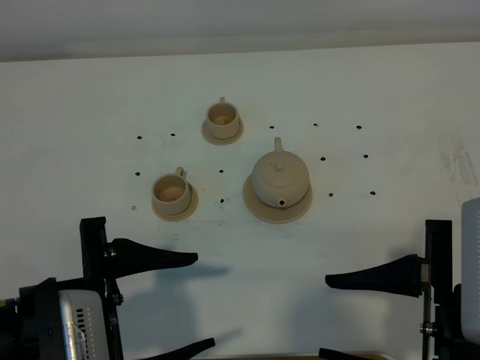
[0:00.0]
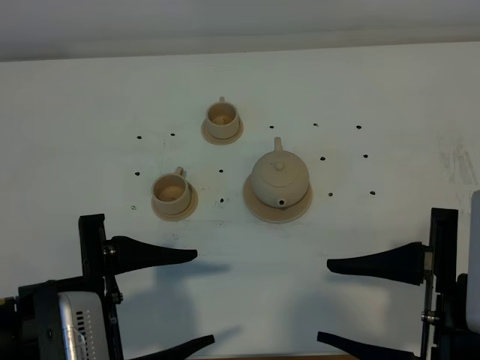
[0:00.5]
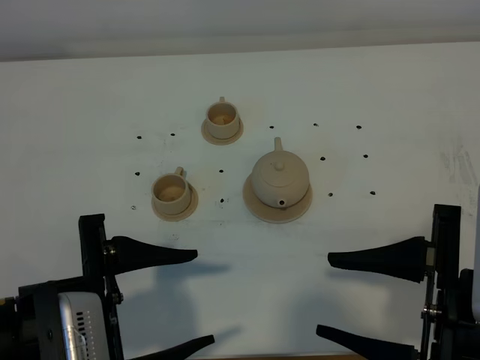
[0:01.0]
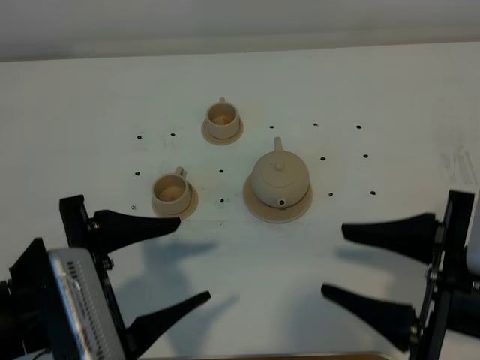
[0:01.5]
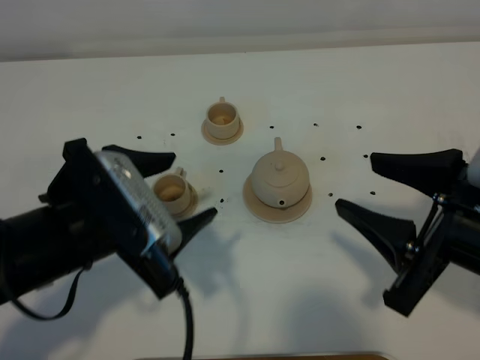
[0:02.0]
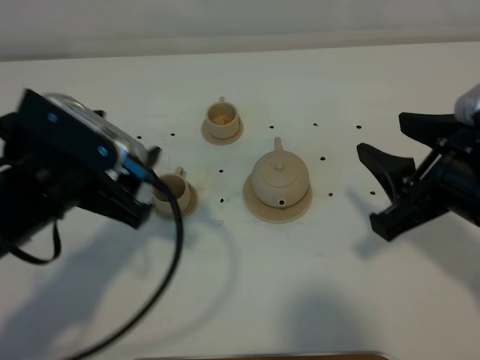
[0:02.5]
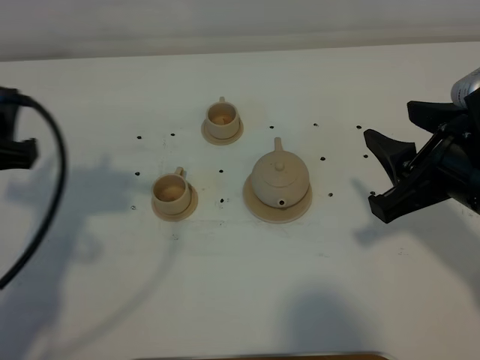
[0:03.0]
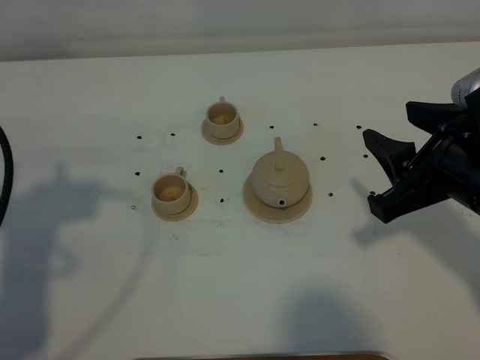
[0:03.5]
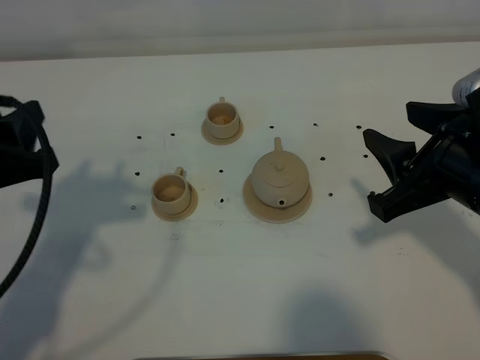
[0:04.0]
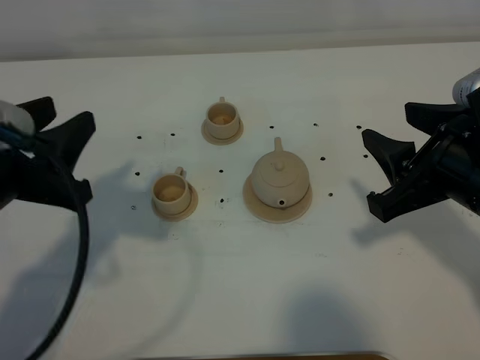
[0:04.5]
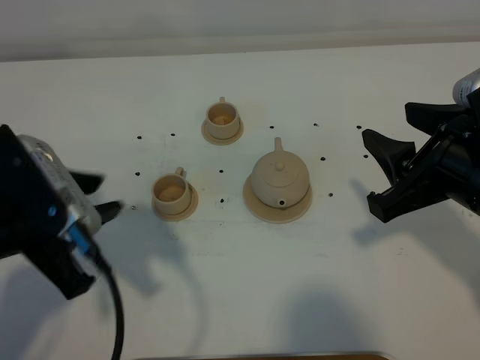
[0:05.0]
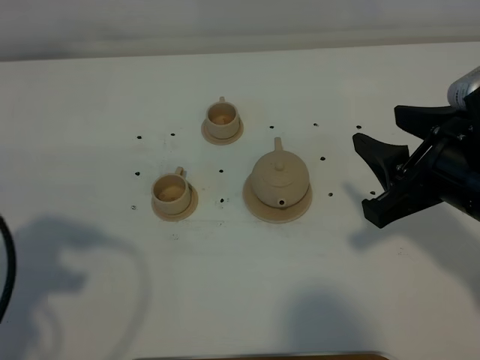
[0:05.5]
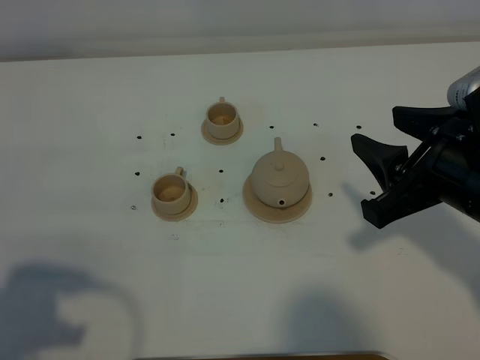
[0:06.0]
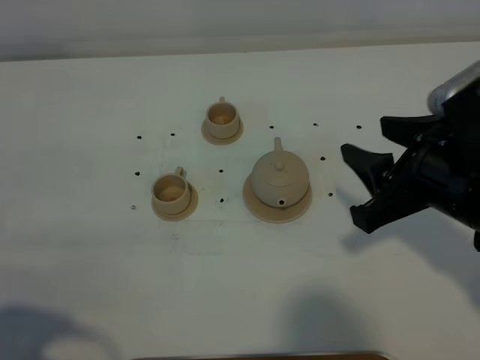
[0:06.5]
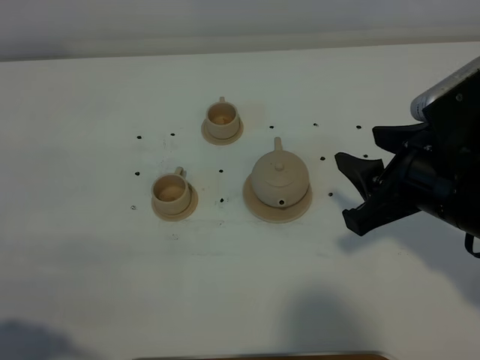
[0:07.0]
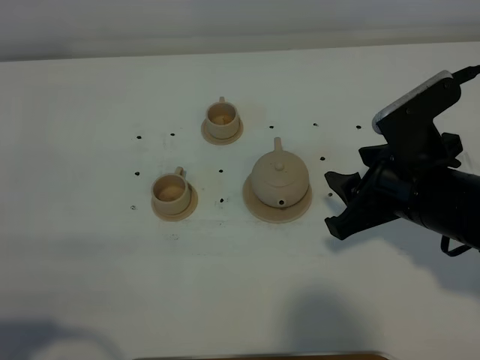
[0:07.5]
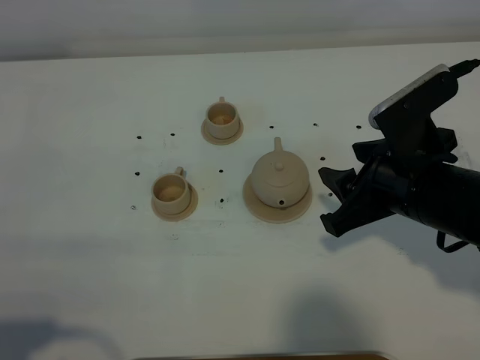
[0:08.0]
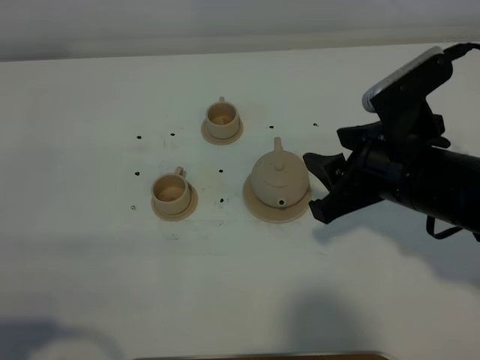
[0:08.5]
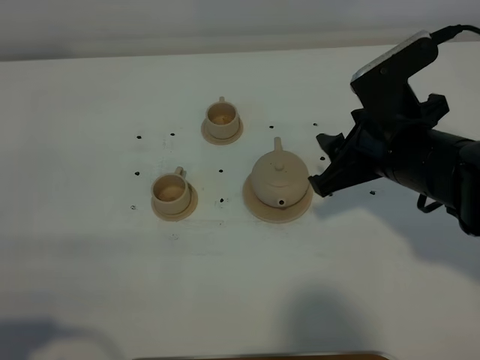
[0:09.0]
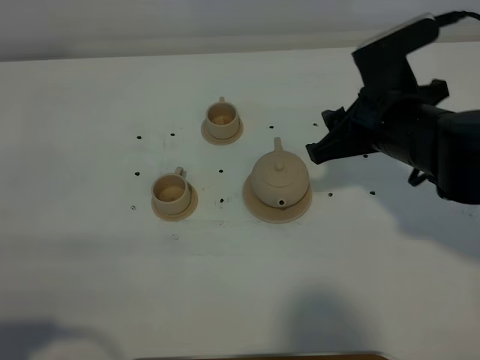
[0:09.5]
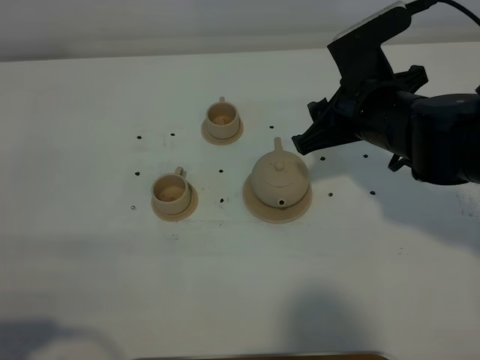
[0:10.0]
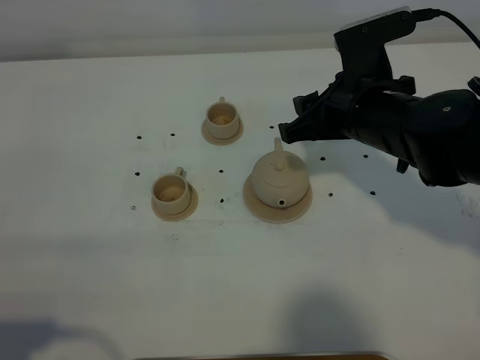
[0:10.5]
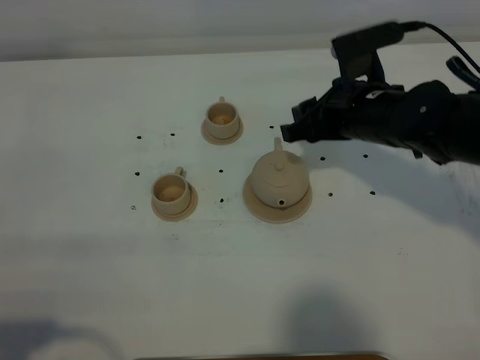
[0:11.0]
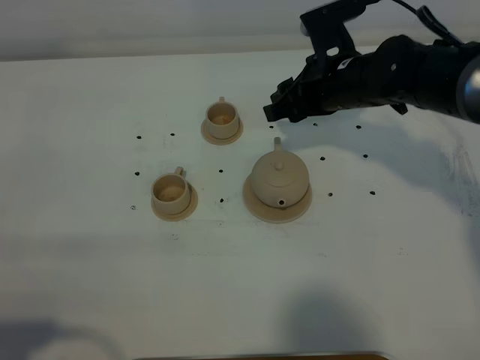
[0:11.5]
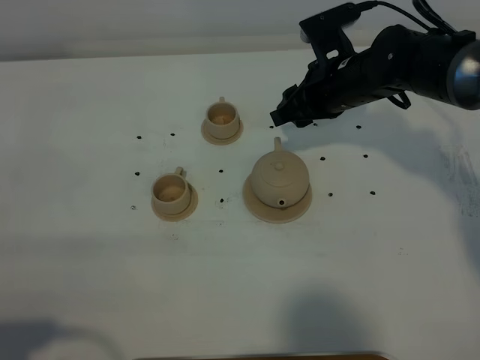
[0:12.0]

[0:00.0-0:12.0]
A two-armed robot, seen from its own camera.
Task of the whole recording: grasp the brown teapot and pour the tea into the two brown teacups one by one, put the brown teapot back in its original place.
0:00.0 to 0:02.0: The two grippers go approximately 5 cm forward.
0:02.0 to 0:04.0: The left gripper heads to the left, covering roughly 10 cm, and closes.
0:04.0 to 0:06.0: The left gripper travels backward by roughly 10 cm, and closes its fingers.
0:06.0 to 0:08.0: The right gripper goes approximately 5 cm downward; the left gripper shifts roughly 5 cm backward.
0:08.0 to 0:10.0: The right gripper moves forward, about 10 cm.
0:10.0 to 0:12.0: The right gripper is displaced forward by approximately 10 cm.

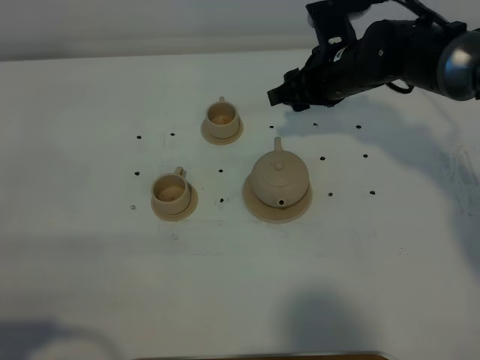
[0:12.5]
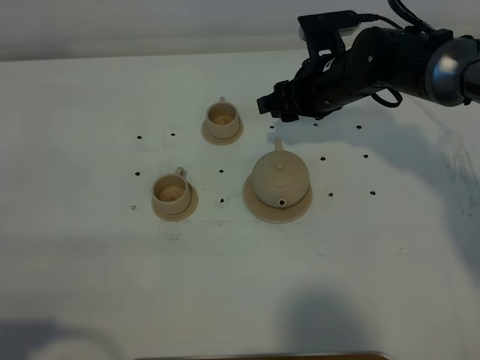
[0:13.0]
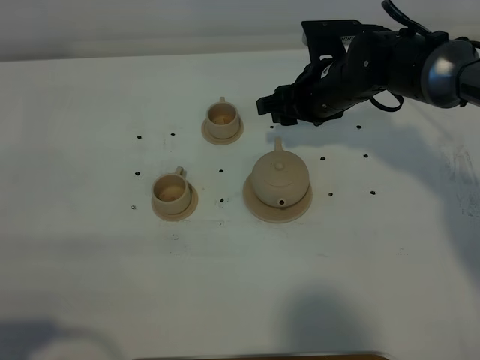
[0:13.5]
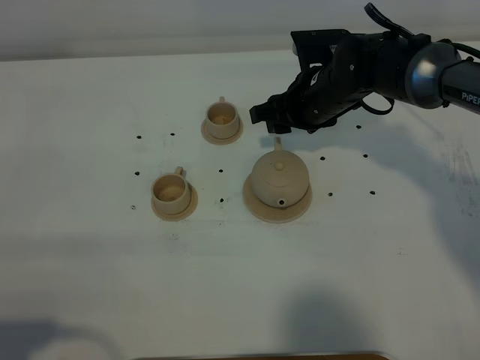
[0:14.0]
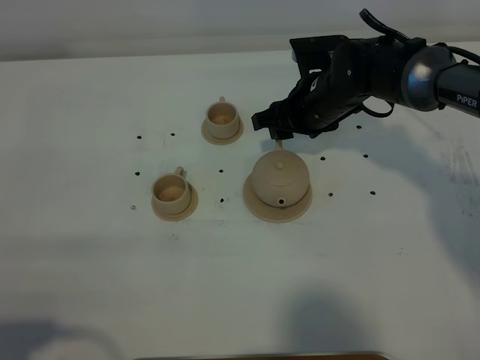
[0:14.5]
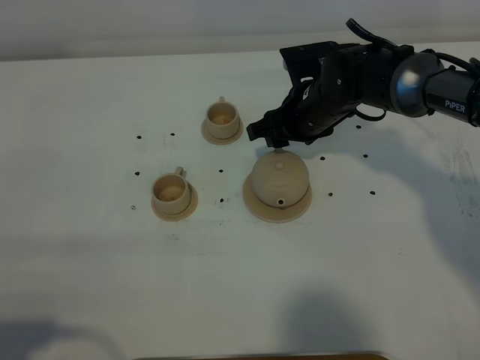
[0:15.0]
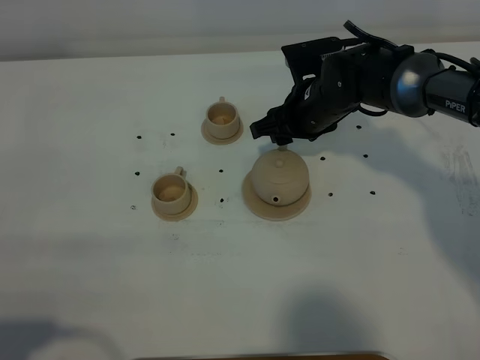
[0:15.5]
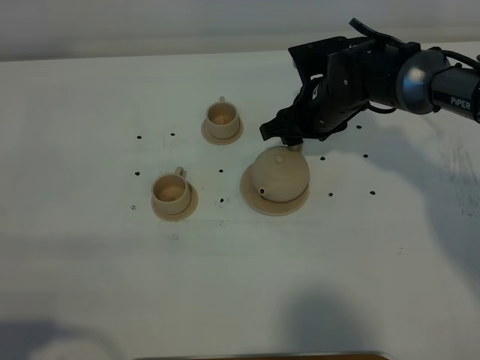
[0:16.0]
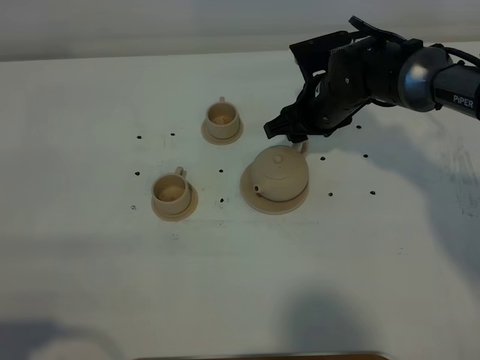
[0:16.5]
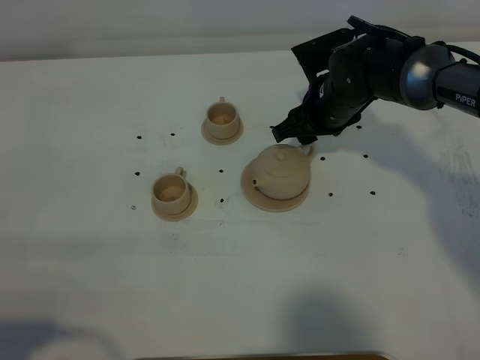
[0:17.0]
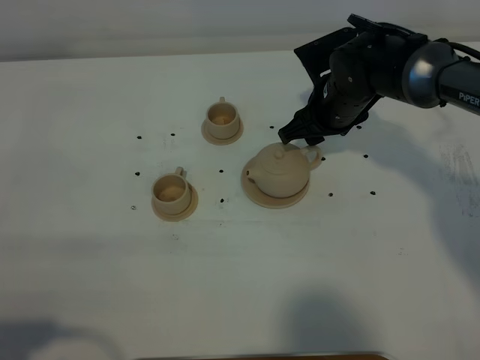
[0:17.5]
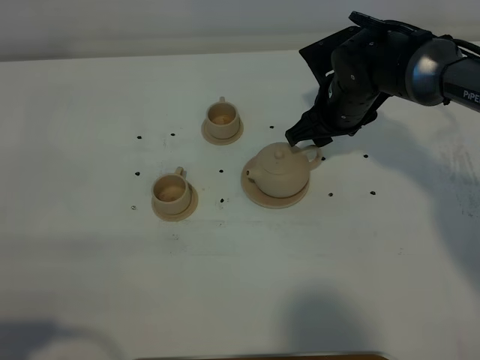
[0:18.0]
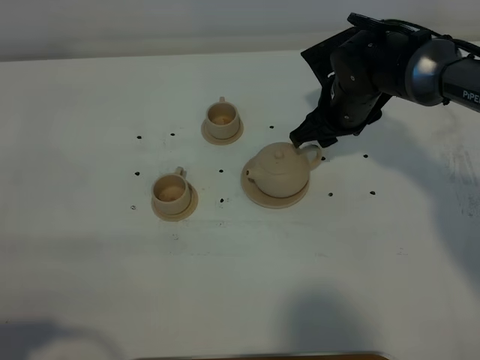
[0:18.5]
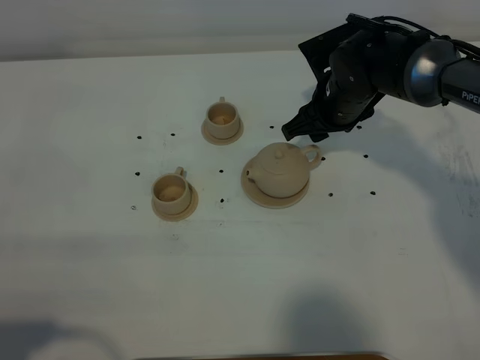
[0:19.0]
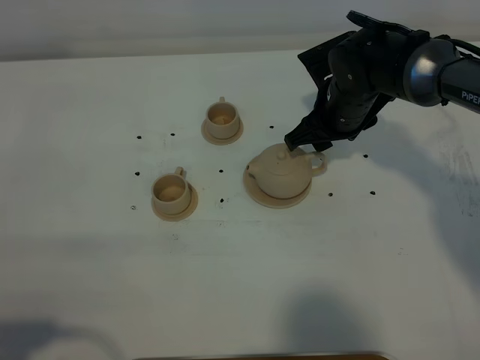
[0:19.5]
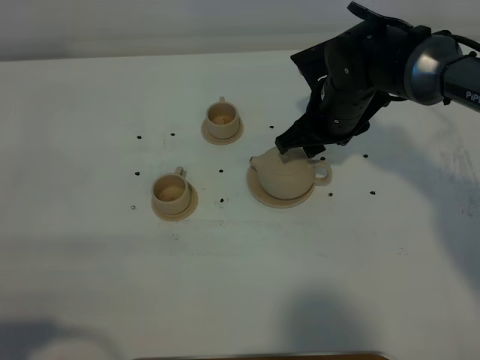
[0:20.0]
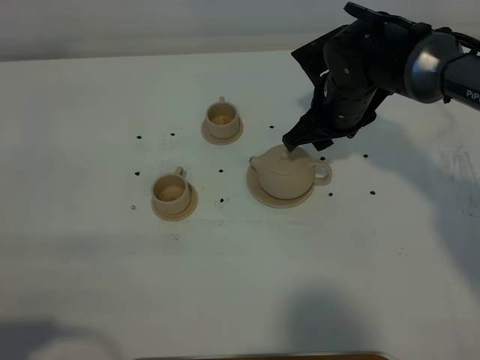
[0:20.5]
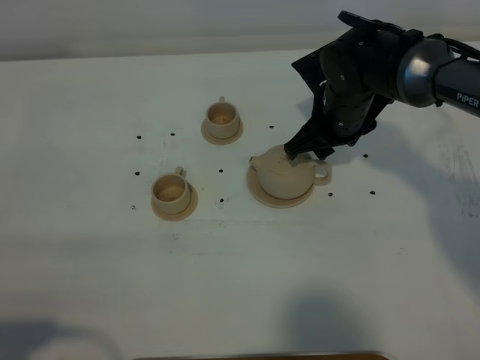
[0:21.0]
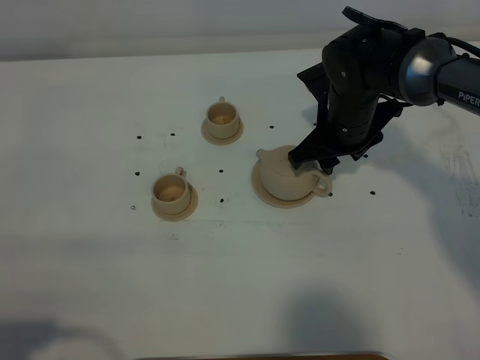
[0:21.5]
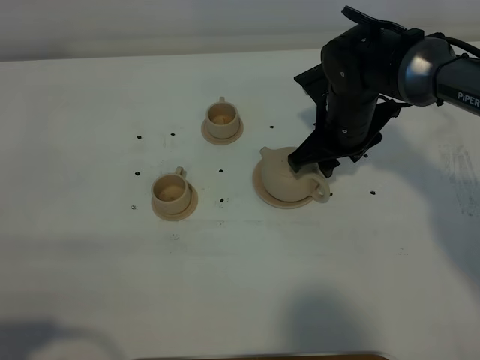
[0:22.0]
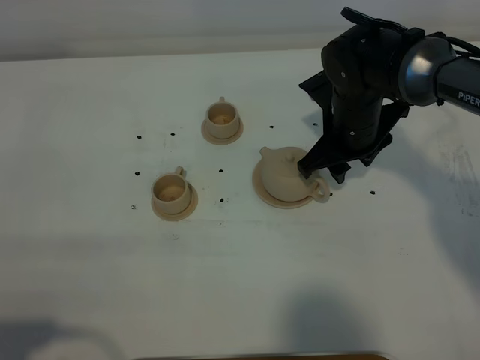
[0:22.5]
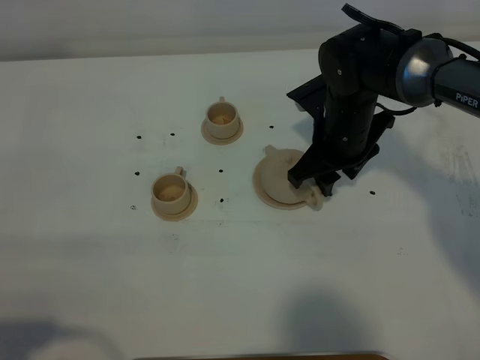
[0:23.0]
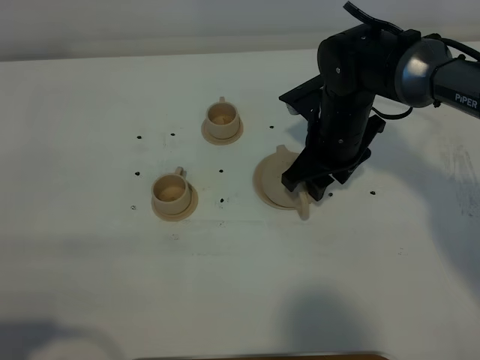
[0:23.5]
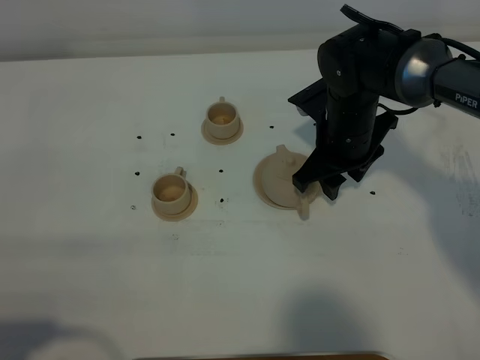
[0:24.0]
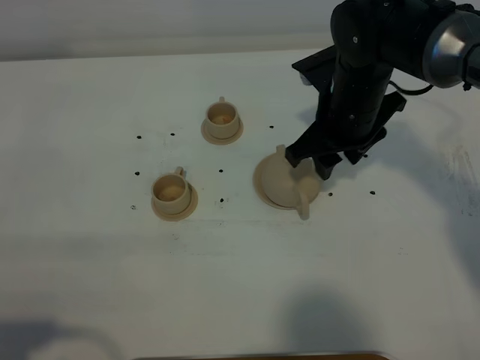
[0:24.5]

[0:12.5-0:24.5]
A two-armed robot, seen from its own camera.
Task of the whole recording: grasp the brown teapot and pour the tea into the two brown teacups one by one, put the brown teapot back in its original place.
0:12.5 to 0:16.5: There are only small adjustments of the grippers.
0:16.5 to 0:20.5: The grippers make only small movements.
0:20.5 to 0:22.5: The grippers stay close to where they were, moving slightly.
0:22.5 to 0:24.5: The right gripper changes place by about 5 cm.

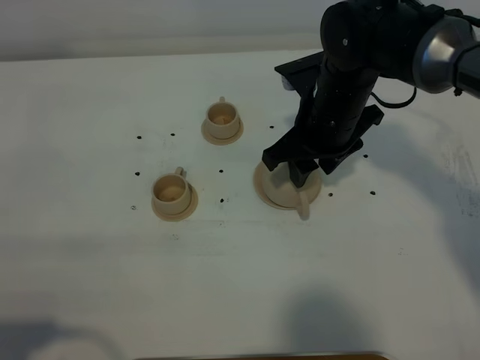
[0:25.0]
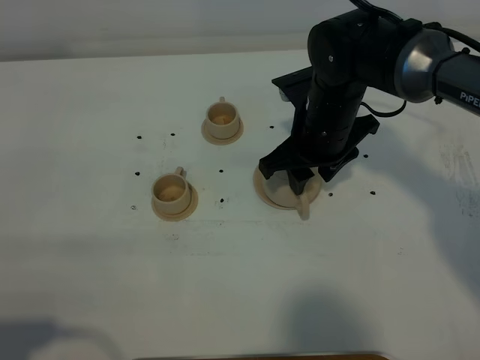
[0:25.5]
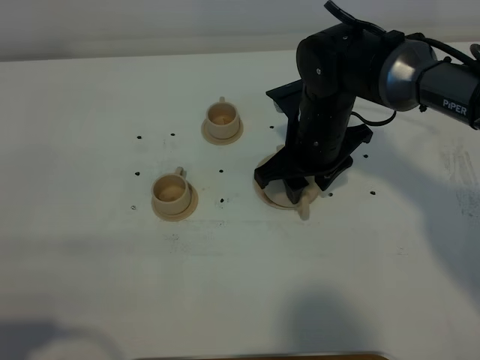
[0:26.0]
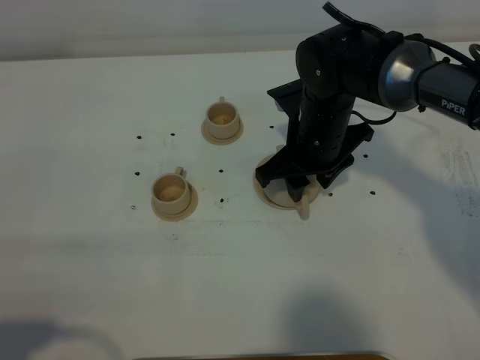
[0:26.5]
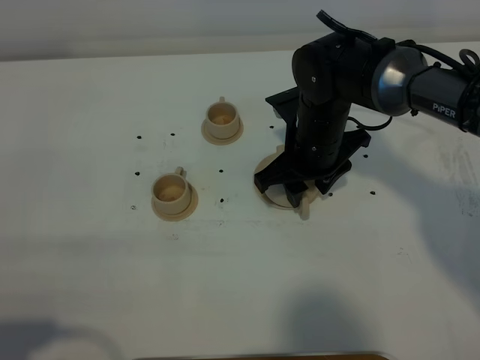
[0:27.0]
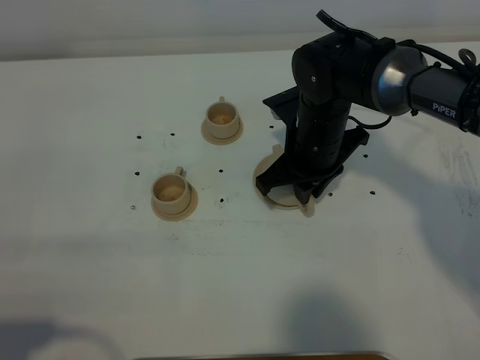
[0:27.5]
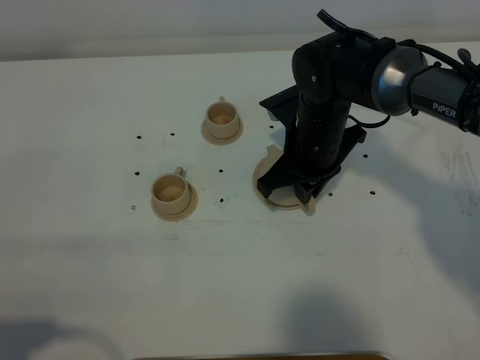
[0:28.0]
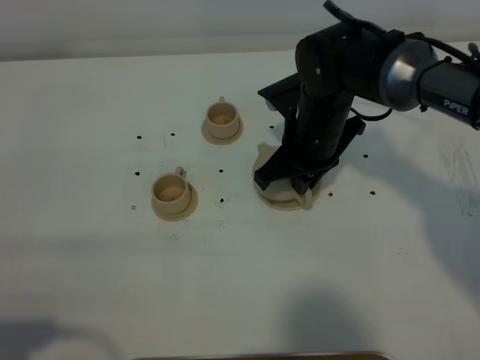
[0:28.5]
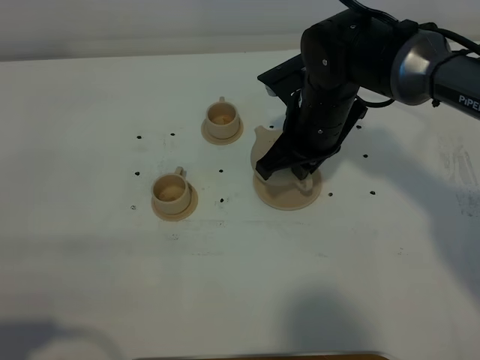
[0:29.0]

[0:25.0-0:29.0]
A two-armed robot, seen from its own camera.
Task of the whole recording: grasp the brown teapot and pour the tea into the two brown teacups one by one, put the brown teapot back in its original place.
Step, 0:25.0 to 0:28.5: Pick up the teapot with the right gripper.
0:25.0 to 0:27.0: The grippers make only small movements.
0:27.0 to 0:29.0: The right gripper closes up.
